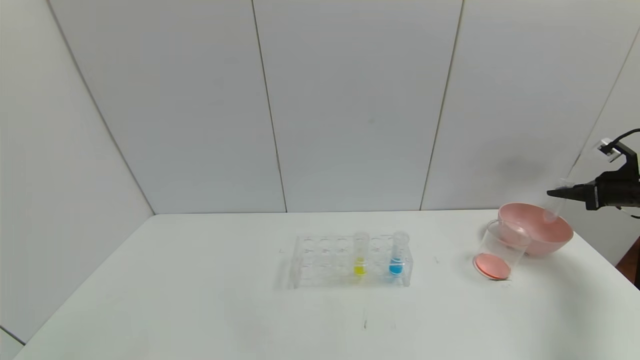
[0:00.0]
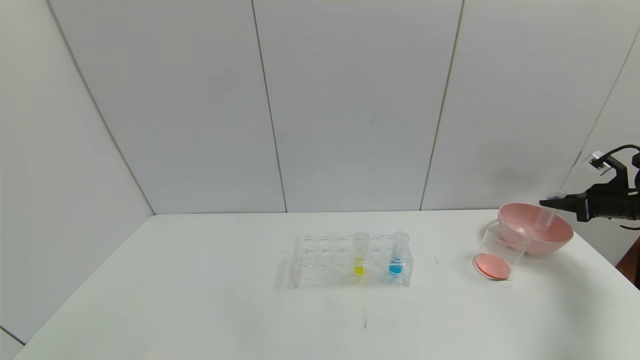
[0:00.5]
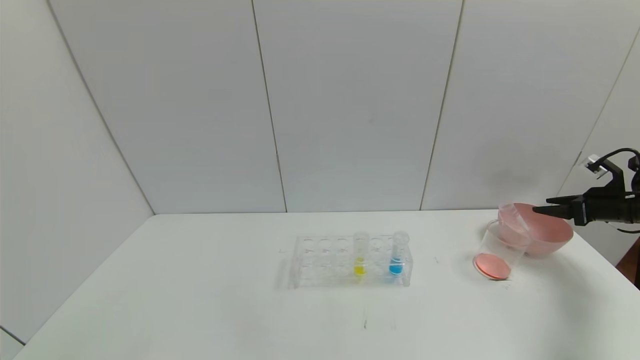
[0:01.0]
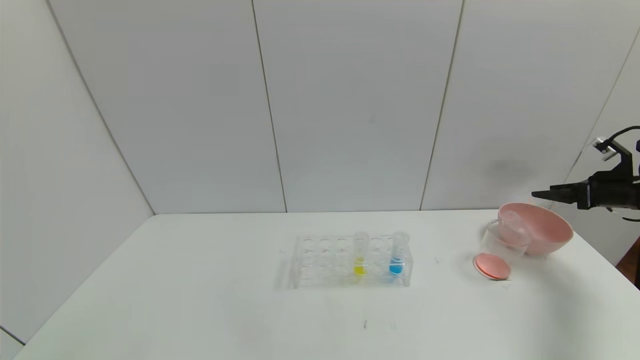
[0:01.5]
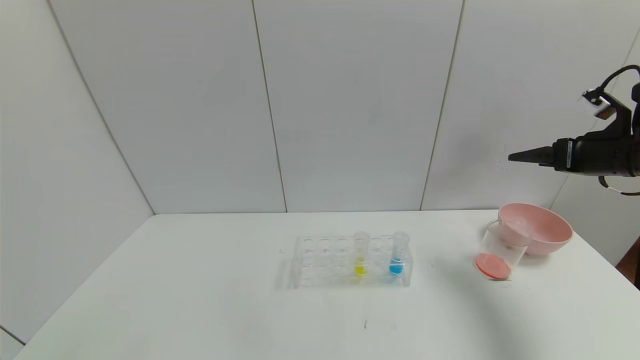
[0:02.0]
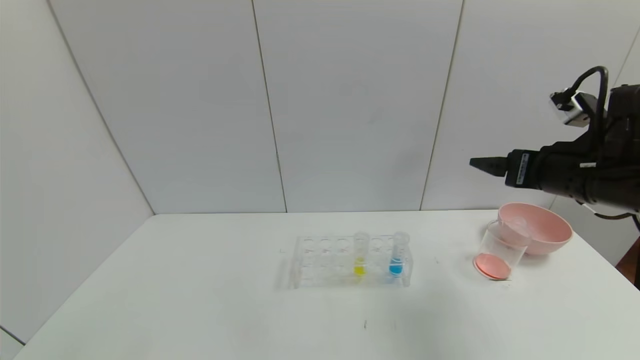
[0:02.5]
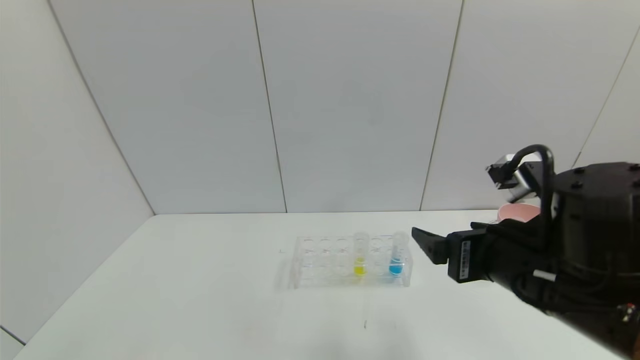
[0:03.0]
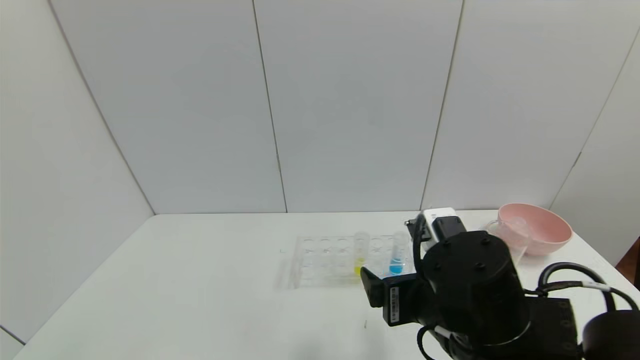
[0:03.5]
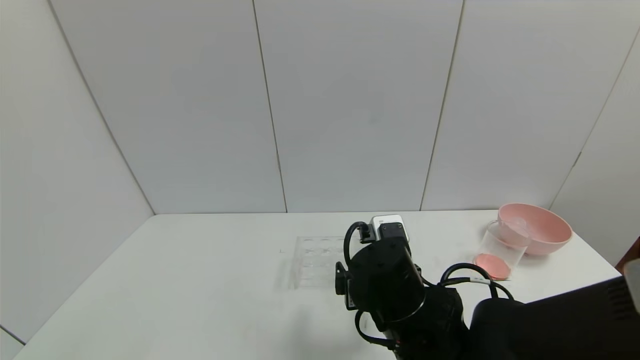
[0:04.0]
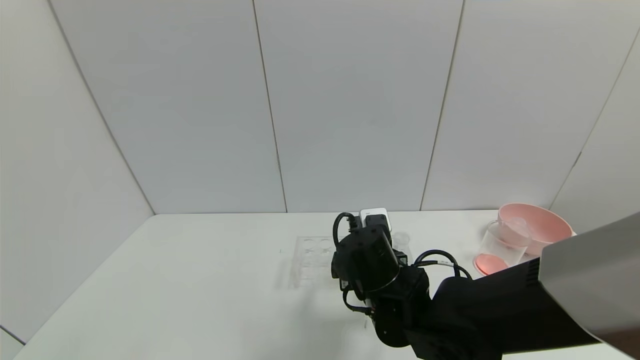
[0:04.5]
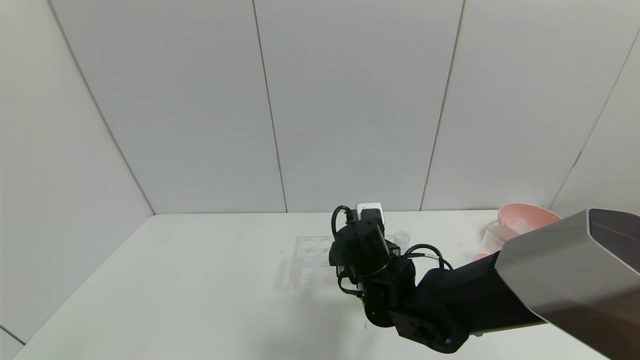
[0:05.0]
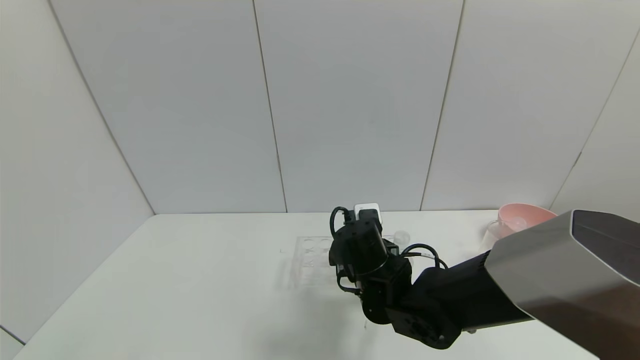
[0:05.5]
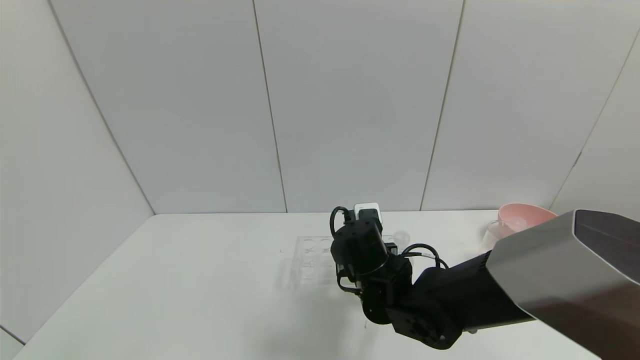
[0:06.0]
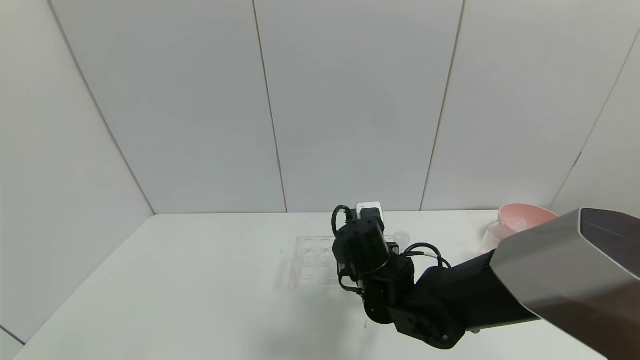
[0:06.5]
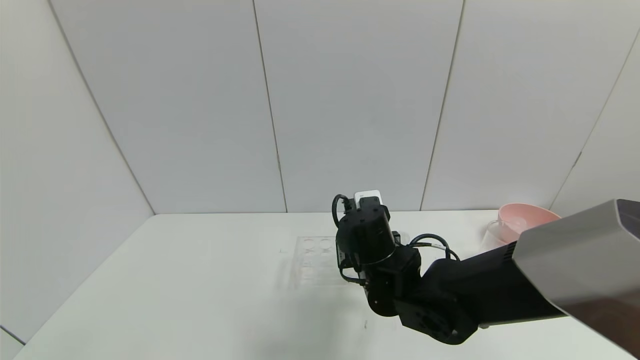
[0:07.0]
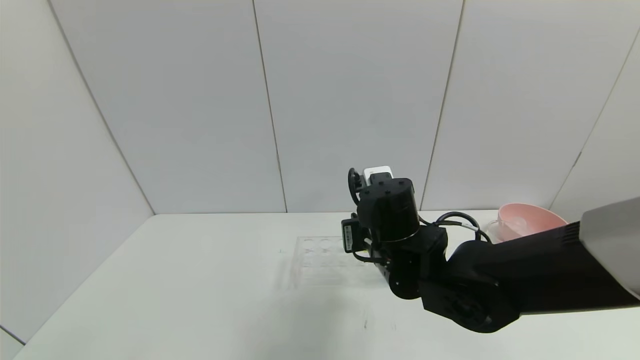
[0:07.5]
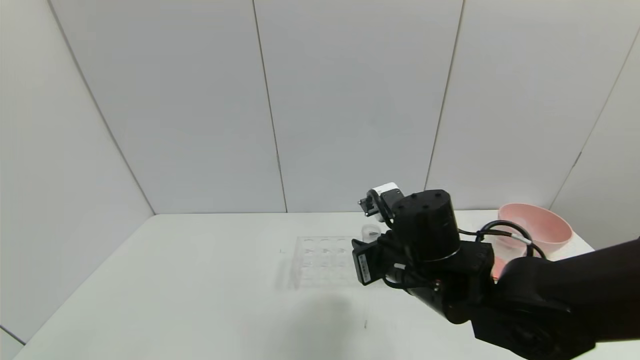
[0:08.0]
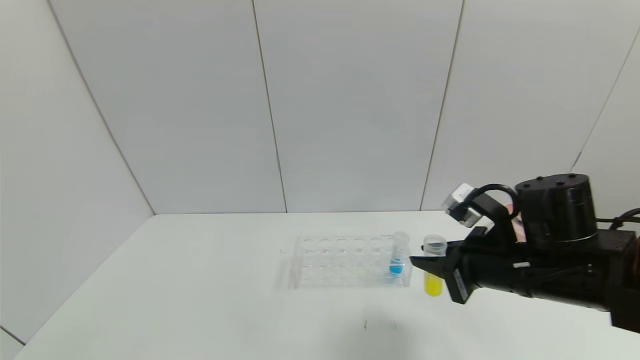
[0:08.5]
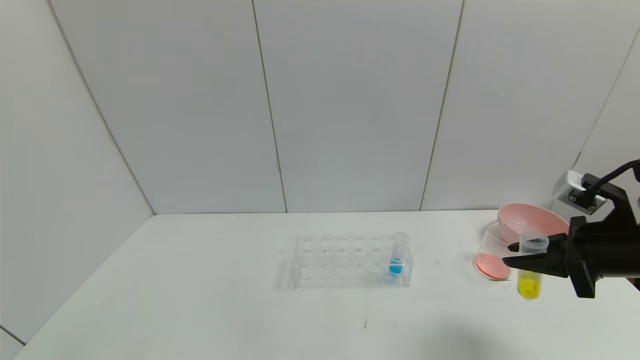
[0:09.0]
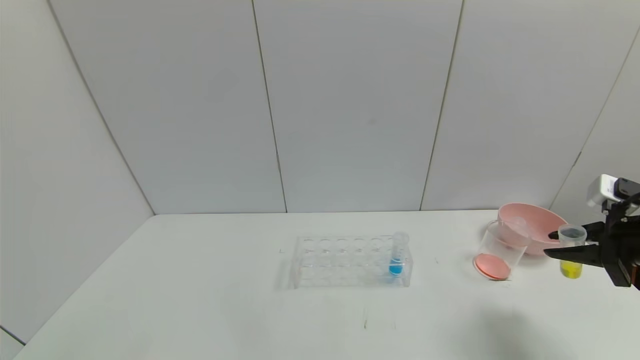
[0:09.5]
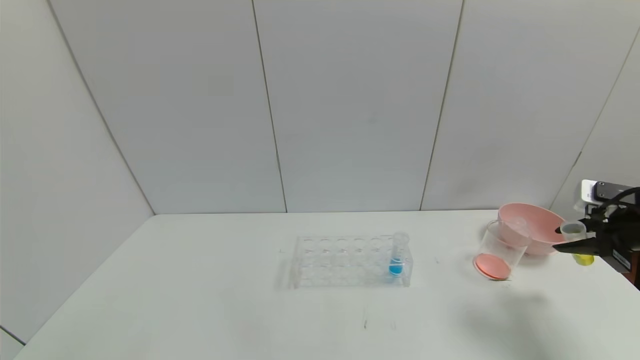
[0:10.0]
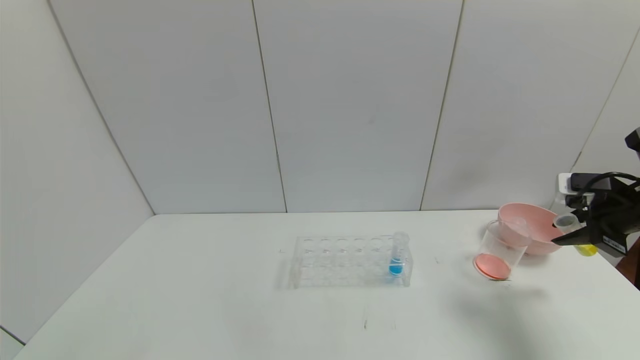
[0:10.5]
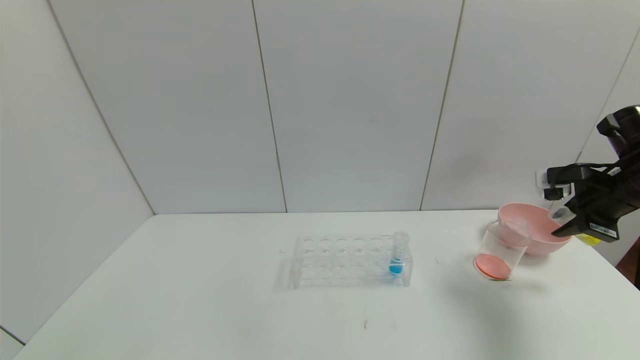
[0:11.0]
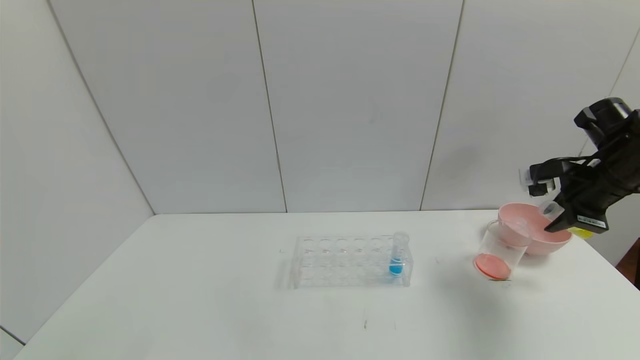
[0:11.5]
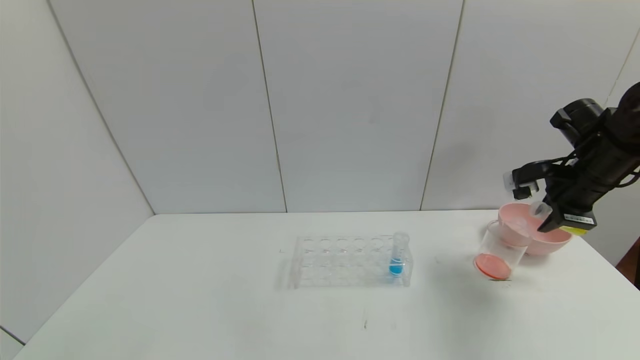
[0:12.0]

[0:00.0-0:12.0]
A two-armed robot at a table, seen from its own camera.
Task of the whole recording: pick up the test tube with yellow pigment and the test tube with red pigment by grippers and pour them into the beaker.
Step, 0:01.5 to 0:06.0: Grasp the yellow reagent with the right gripper.
0:00.0 to 0:02.0: The right gripper moves to the left and upward, roughly 15 cm, and opens up.
0:02.0 to 0:04.0: The right gripper is displaced to the left by some 35 cm.
0:04.0 to 0:06.0: The right gripper moves forward, roughly 10 cm, and closes up.
0:06.0 to 0:08.0: The right gripper heads upward, covering some 5 cm.
0:08.0 to 0:10.0: The right gripper is displaced to the right by some 35 cm.
0:10.0 to 0:12.0: The right gripper moves forward and to the left, approximately 10 cm.

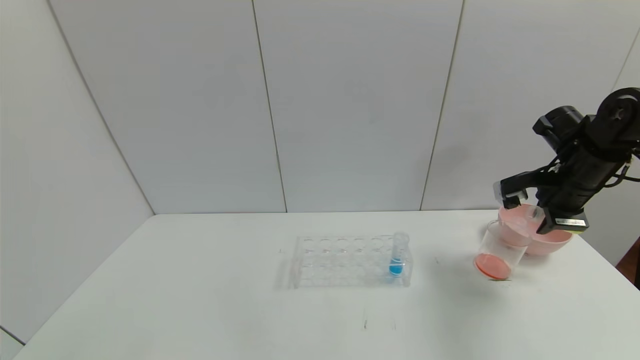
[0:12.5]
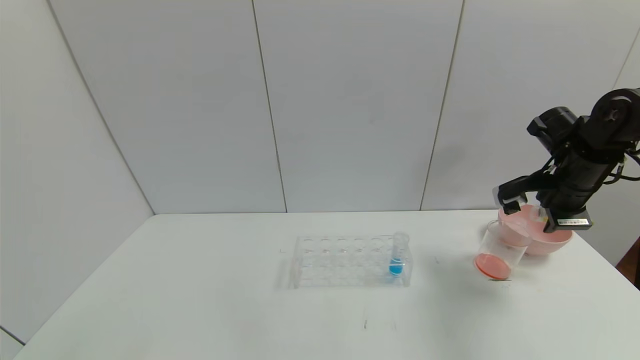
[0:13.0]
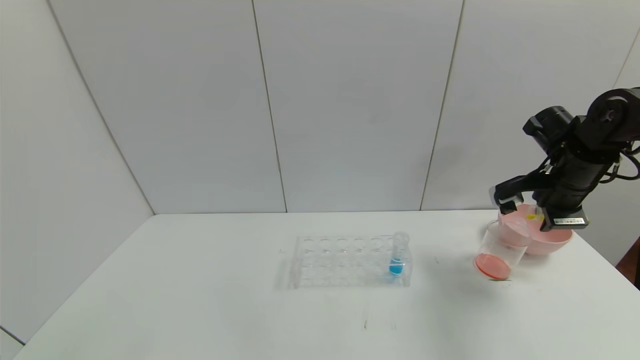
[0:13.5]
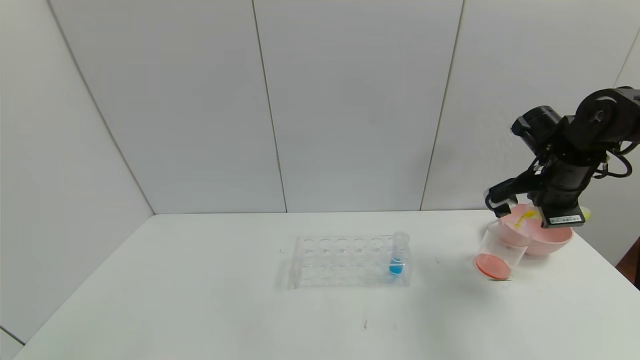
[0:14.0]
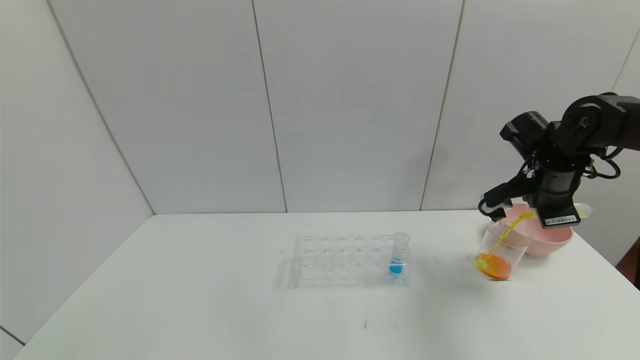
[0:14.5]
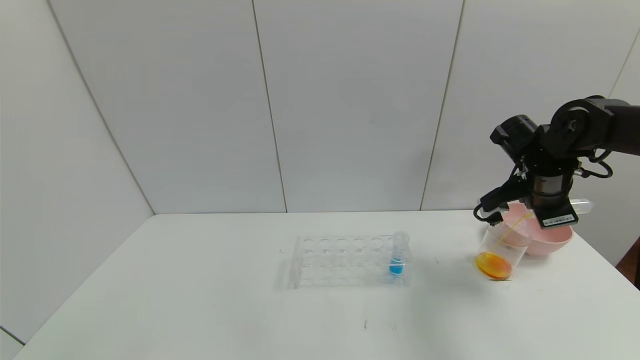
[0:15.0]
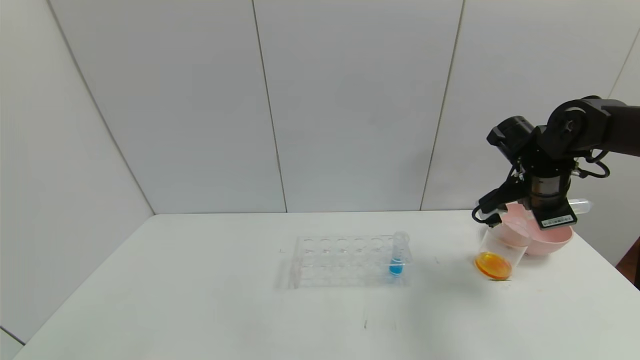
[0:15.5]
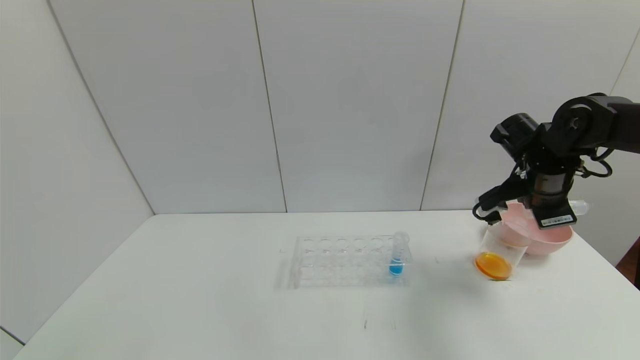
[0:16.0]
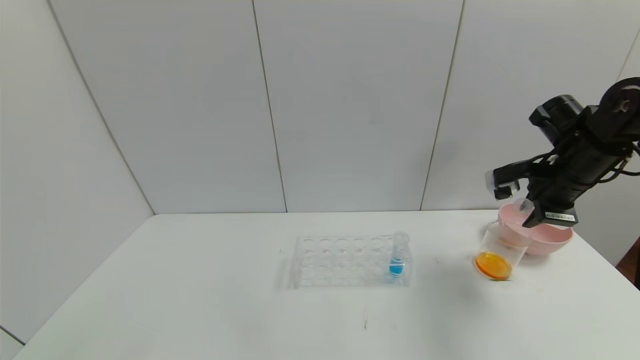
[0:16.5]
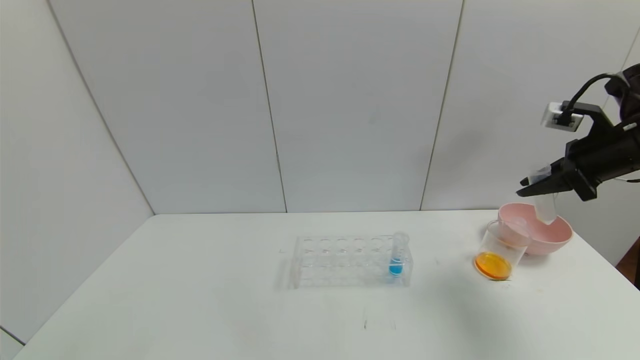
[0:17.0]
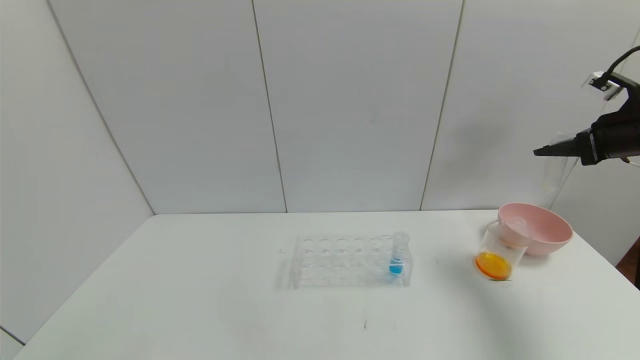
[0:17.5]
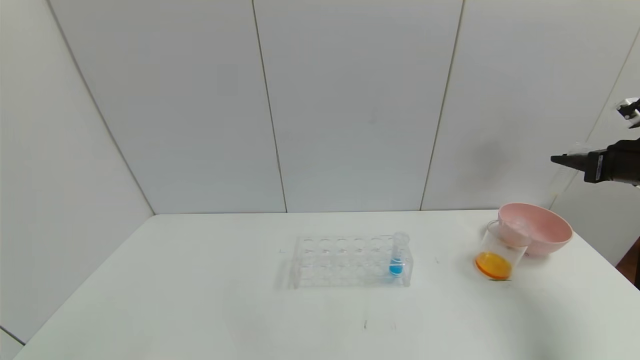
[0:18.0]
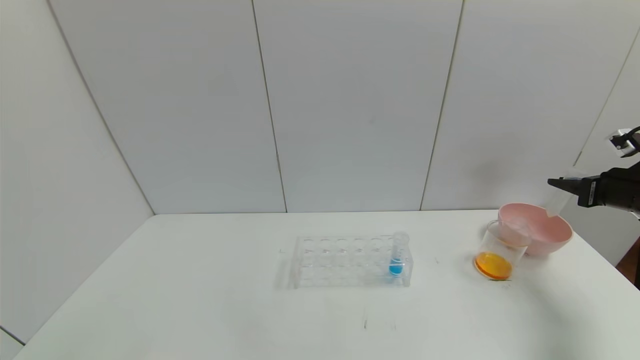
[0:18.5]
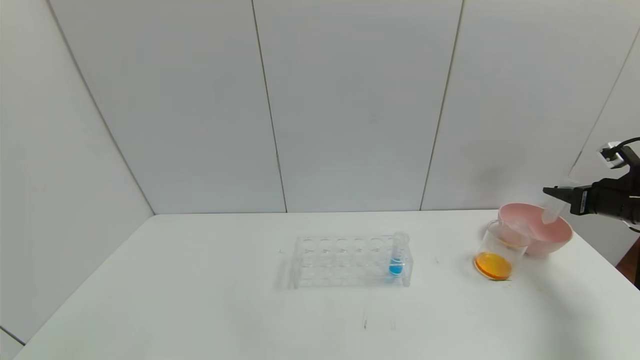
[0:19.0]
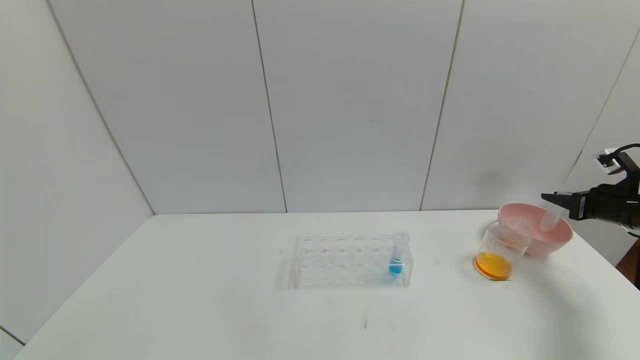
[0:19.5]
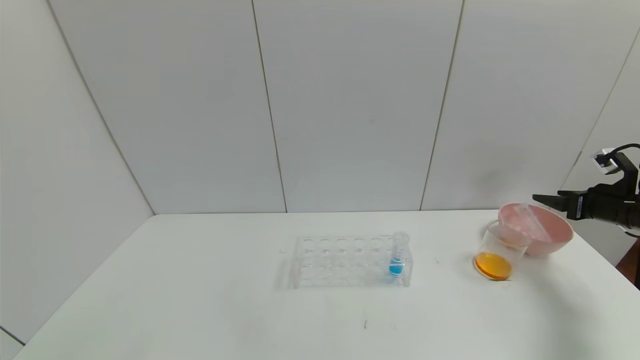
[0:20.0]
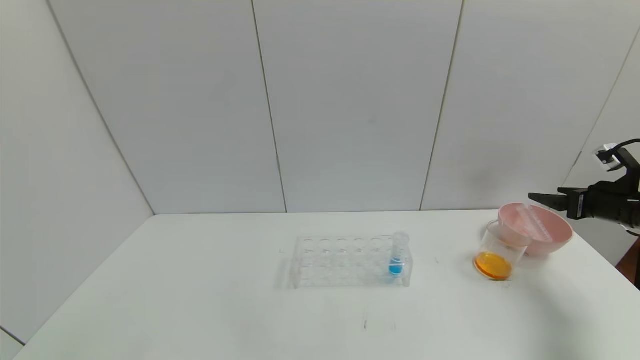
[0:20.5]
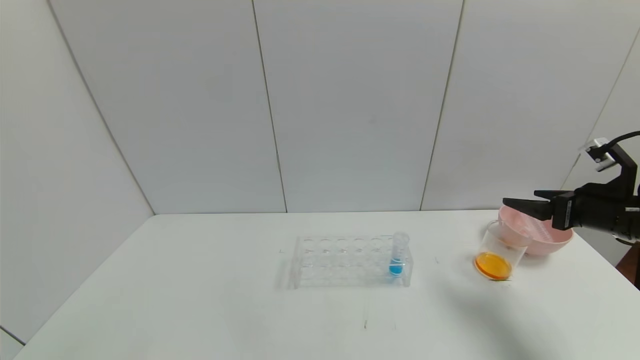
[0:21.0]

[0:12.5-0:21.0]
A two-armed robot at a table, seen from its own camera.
Task of the whole recording: pick up the test tube with yellow pigment and the test tube with red pigment by grippers and pour them into the beaker.
Step, 0:12.5 to 0:15.5: Pour the yellow reagent into the graduated cylinder with the right gripper.
Step, 0:16.0 to 0:19.5: Place the test tube into the bowl with the right gripper.
0:16.5 to 0:19.0: The right gripper moves to the right and downward, some 15 cm.
0:19.0 to 0:21.0: The right gripper travels to the left and backward by about 10 cm, and opens its fingers.
